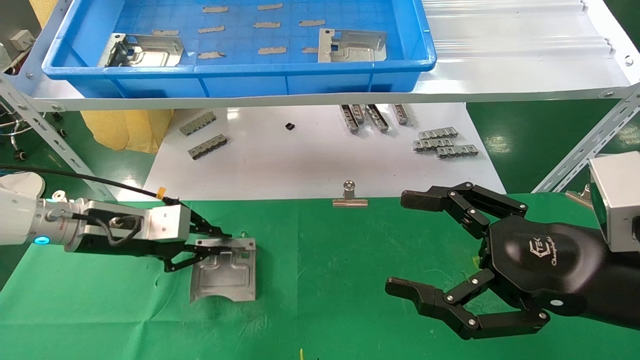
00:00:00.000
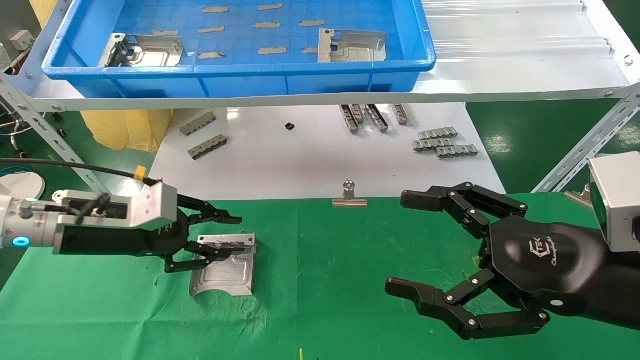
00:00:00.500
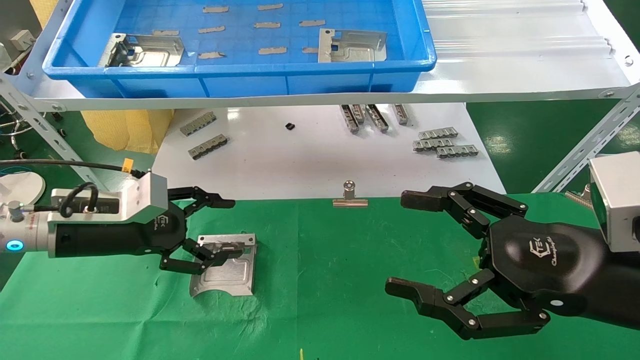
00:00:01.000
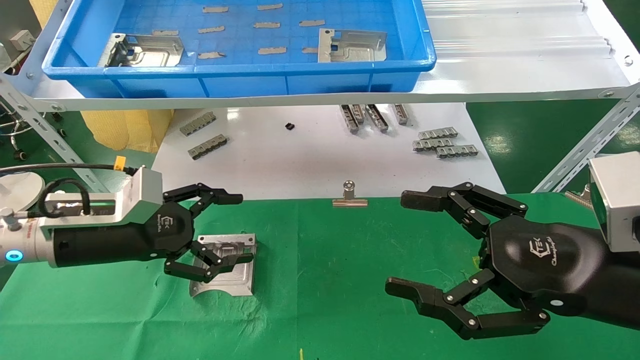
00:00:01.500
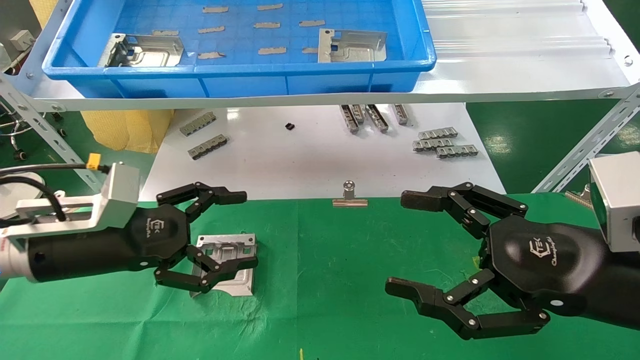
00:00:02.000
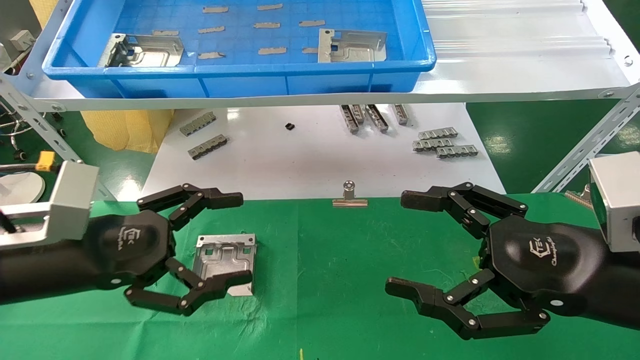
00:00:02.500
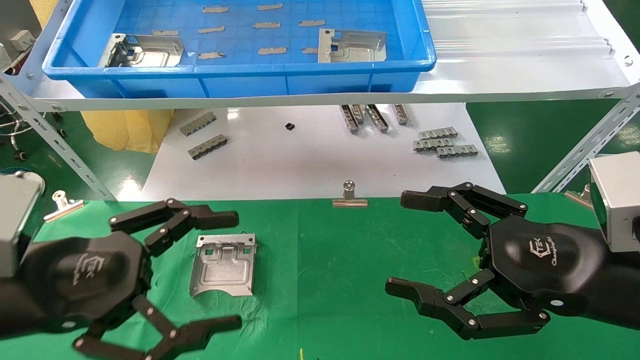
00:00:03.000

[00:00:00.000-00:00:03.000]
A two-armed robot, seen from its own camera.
Task of the whole recording: use the mechanical arm to pick up the parts and place them on the table.
00:00:00.000 to 00:00:01.500: The left gripper opens up.
00:00:01.500 to 00:00:03.000: The left gripper goes roughly 15 cm backward.
